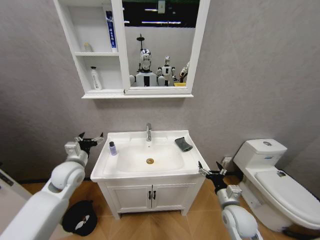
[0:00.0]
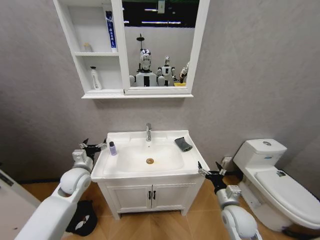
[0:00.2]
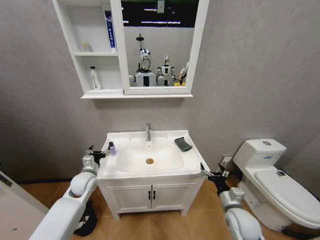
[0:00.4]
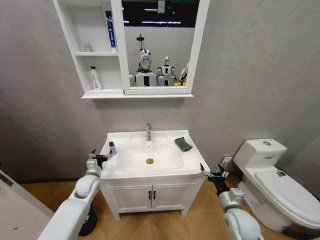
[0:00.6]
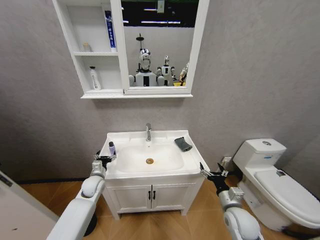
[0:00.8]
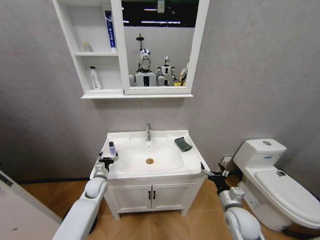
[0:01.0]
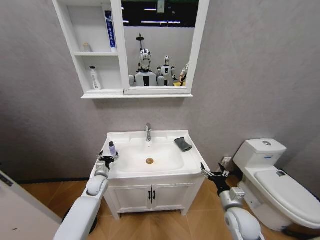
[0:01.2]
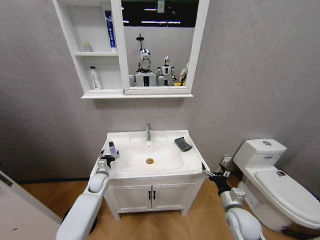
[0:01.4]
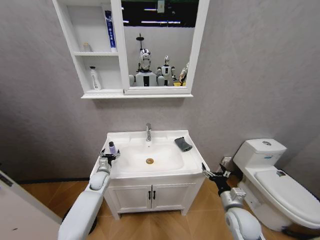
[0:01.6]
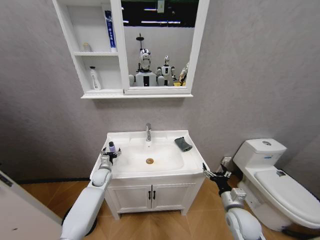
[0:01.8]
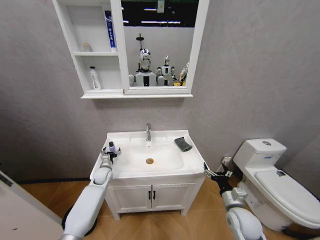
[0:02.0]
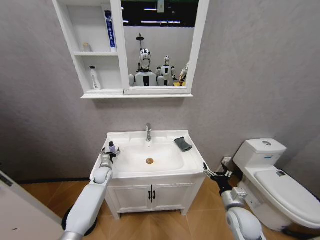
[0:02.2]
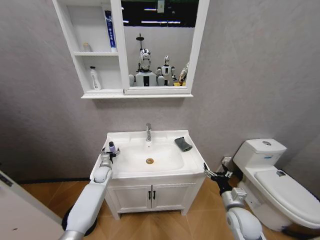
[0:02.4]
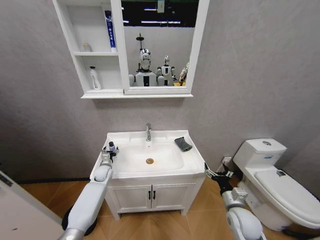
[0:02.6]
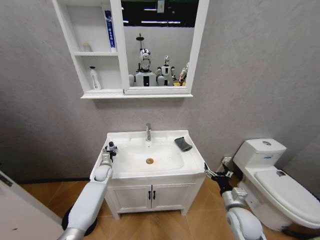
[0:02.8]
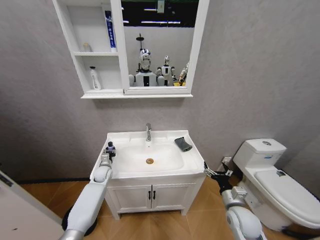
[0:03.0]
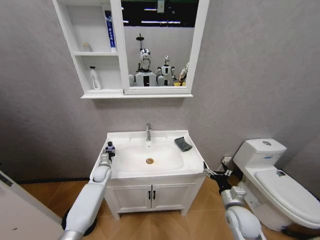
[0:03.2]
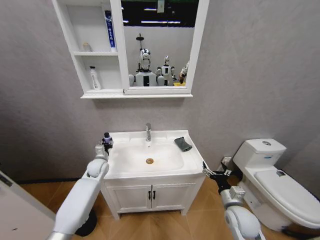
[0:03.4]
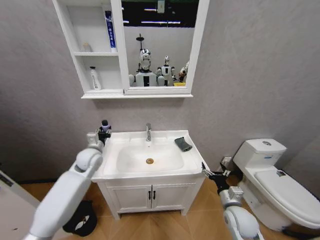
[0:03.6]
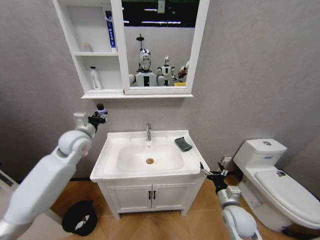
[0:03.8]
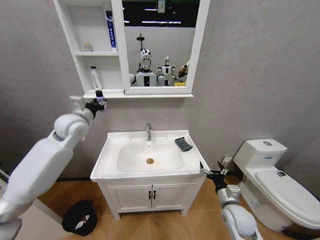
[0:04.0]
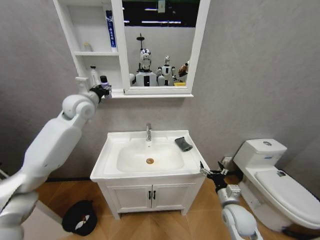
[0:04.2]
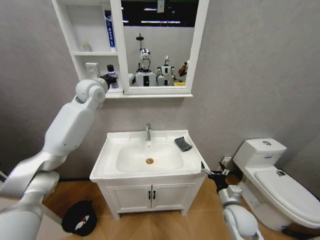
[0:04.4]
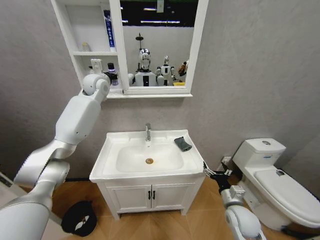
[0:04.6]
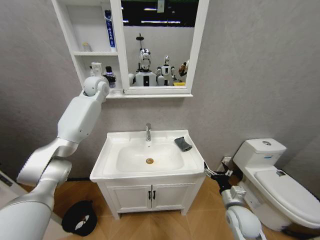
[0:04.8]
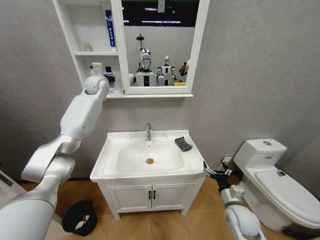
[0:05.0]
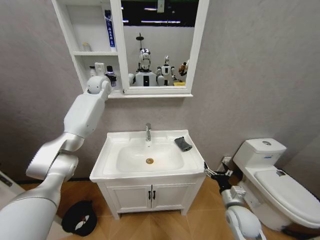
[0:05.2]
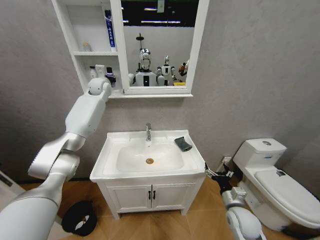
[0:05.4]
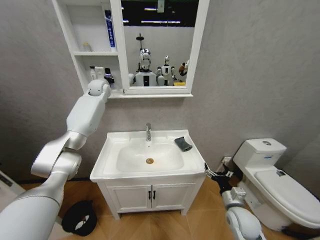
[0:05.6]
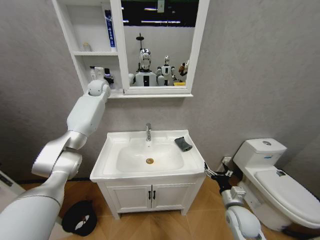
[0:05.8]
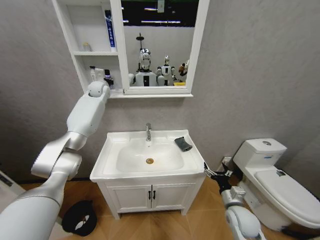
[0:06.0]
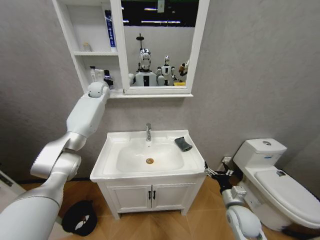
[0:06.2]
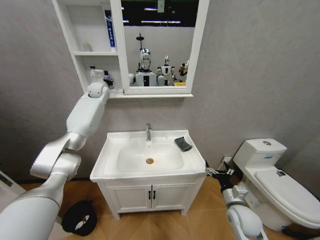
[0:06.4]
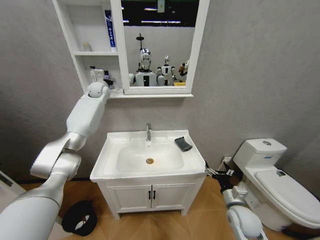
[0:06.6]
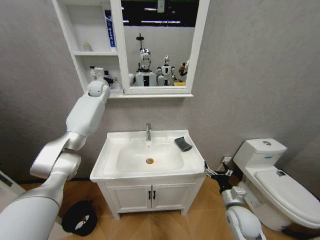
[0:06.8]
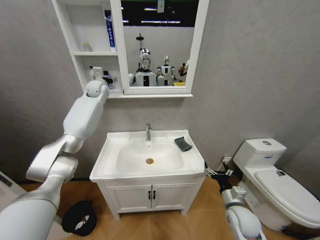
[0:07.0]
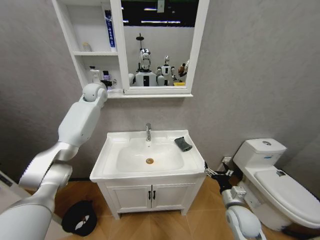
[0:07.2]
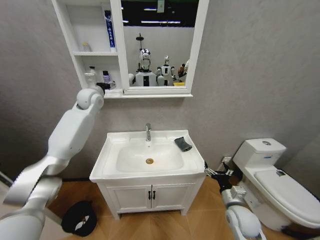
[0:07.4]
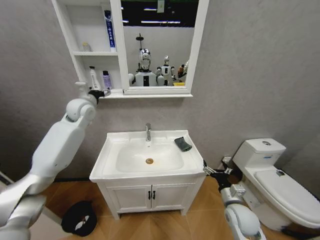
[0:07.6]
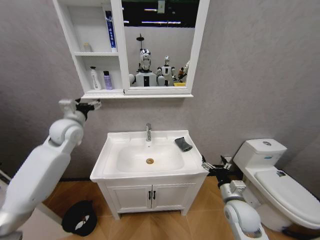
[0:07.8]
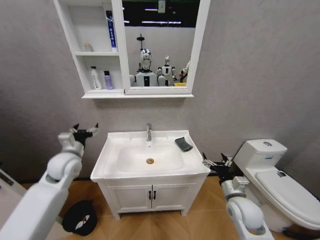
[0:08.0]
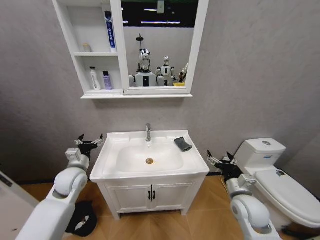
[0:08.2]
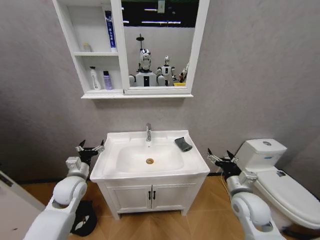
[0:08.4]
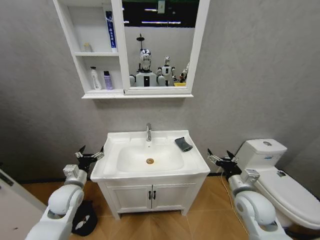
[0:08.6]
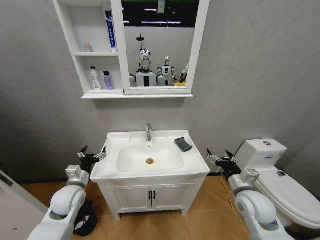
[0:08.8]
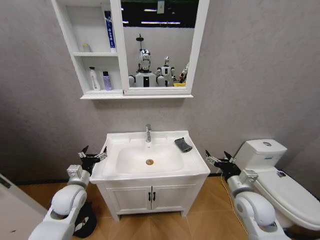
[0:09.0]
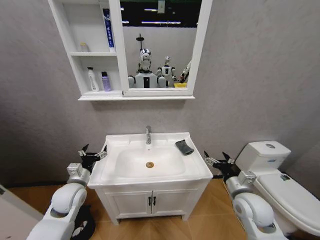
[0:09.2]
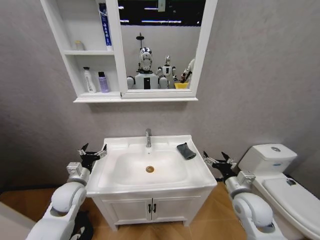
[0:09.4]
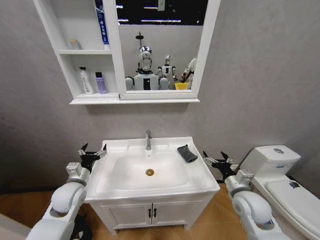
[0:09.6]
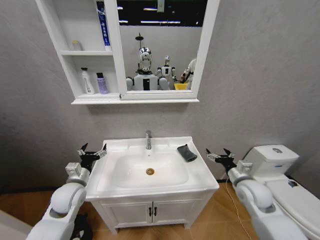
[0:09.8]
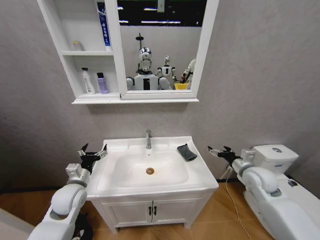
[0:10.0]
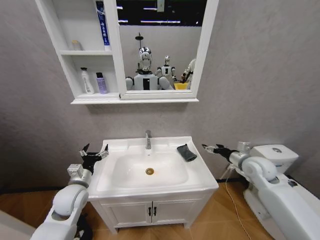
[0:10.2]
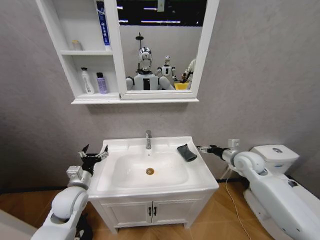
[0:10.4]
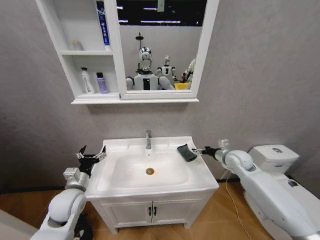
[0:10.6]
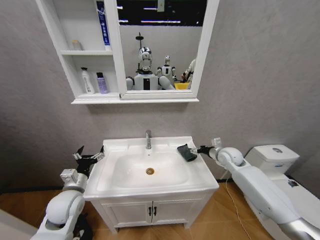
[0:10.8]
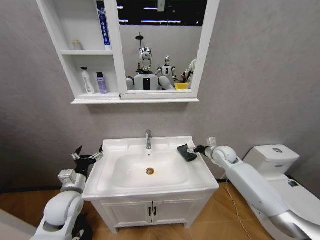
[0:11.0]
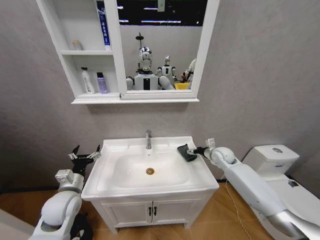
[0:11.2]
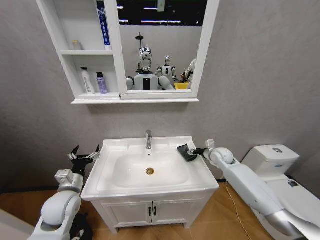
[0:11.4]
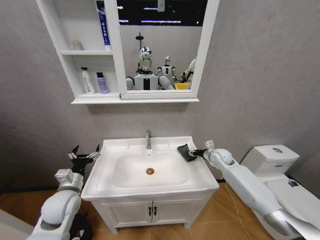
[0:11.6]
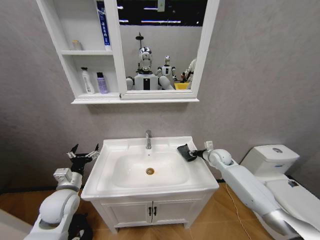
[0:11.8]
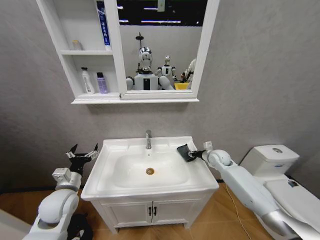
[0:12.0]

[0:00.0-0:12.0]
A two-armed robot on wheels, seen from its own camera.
Task of the whole recording: Move facial cleanser and shampoo from washbasin to cabinet, then wipe washbasin with towel.
0:00.0 to 0:01.6: The left gripper goes approximately 20 cm downward.
0:01.6 to 0:03.0: The left gripper closes its fingers.
0:03.0 to 0:04.4: The left gripper goes roughly 40 cm upward.
0:04.4 to 0:06.0: The left gripper shifts some 10 cm forward.
0:06.0 to 0:07.6: The left gripper moves backward, some 15 cm, and opens up.
0:07.6 to 0:09.0: The left gripper shifts about 30 cm downward and backward; the right gripper travels upward by about 10 cm.
0:09.0 to 0:10.4: The right gripper is displaced forward and to the right by roughly 15 cm.
0:10.4 to 0:12.0: The right gripper goes about 10 cm forward and downward, and closes up.

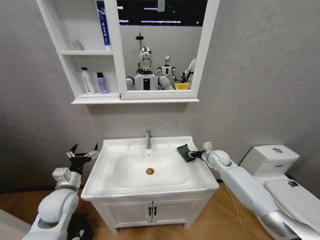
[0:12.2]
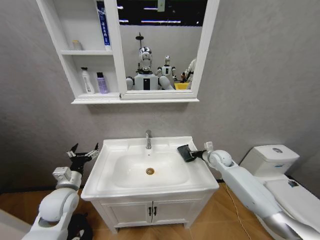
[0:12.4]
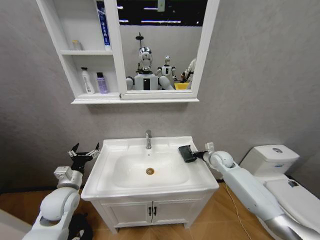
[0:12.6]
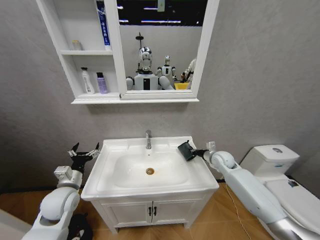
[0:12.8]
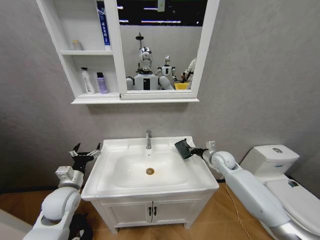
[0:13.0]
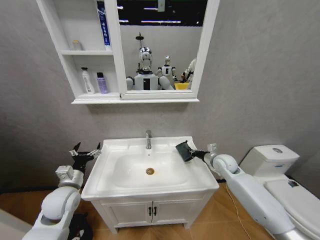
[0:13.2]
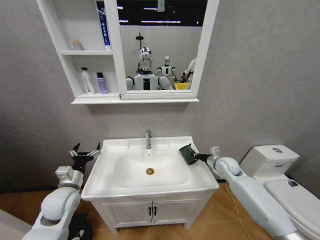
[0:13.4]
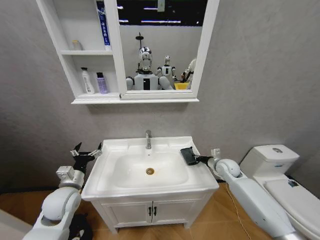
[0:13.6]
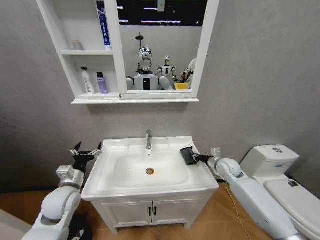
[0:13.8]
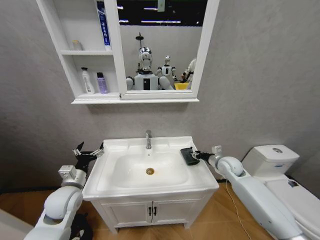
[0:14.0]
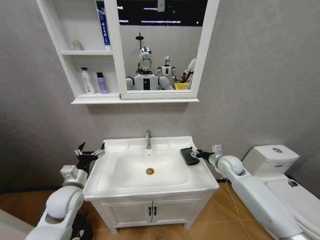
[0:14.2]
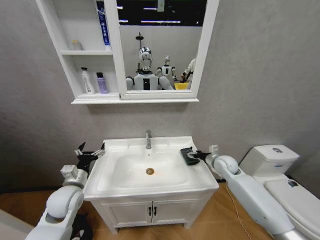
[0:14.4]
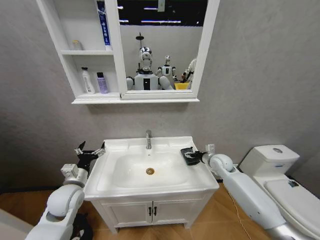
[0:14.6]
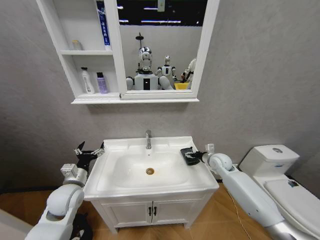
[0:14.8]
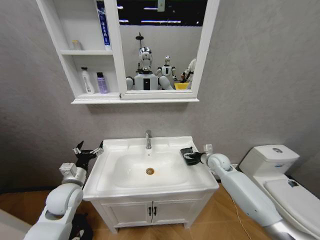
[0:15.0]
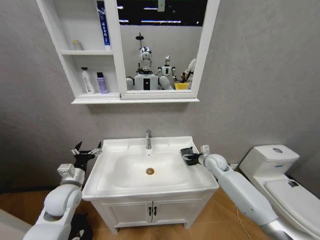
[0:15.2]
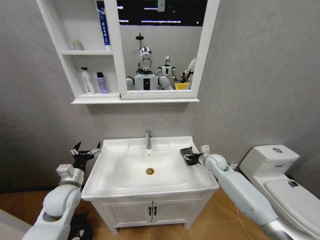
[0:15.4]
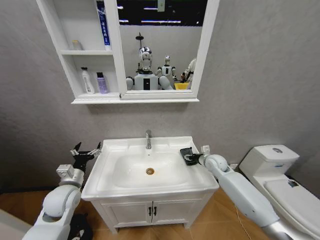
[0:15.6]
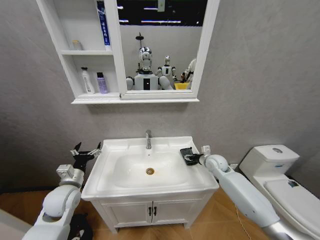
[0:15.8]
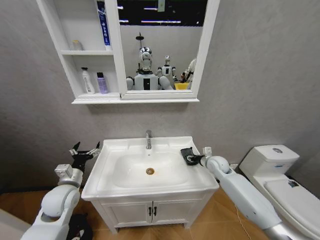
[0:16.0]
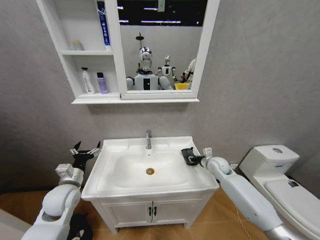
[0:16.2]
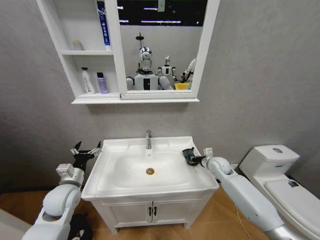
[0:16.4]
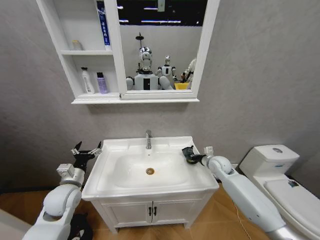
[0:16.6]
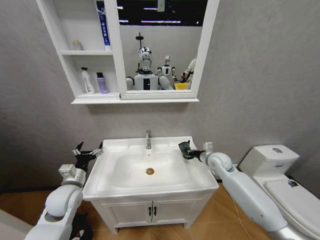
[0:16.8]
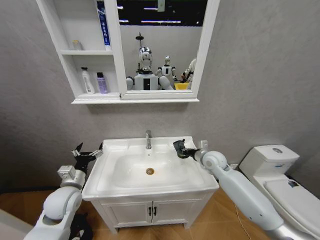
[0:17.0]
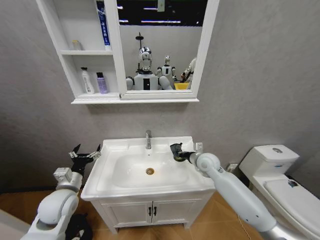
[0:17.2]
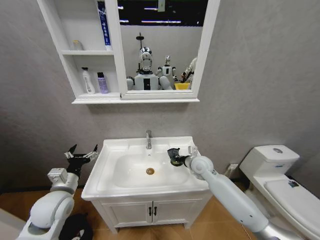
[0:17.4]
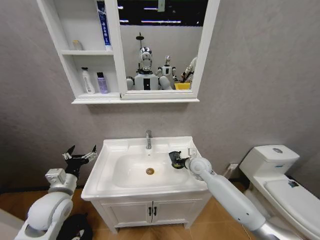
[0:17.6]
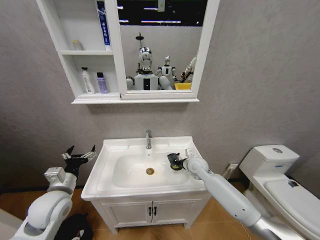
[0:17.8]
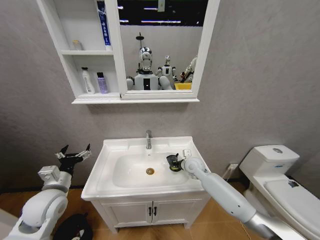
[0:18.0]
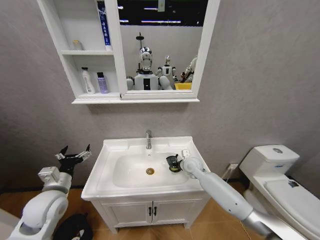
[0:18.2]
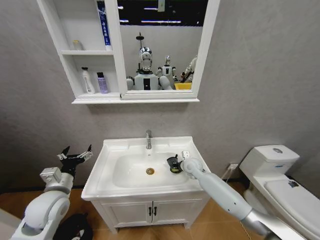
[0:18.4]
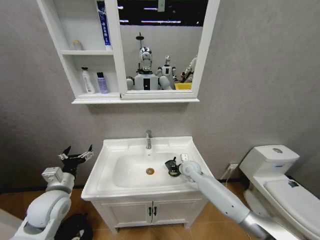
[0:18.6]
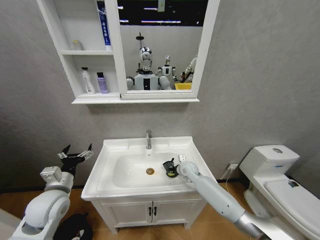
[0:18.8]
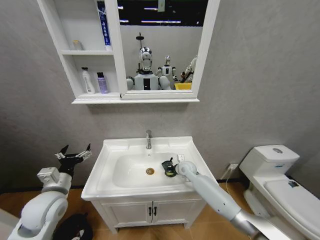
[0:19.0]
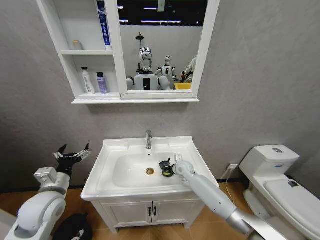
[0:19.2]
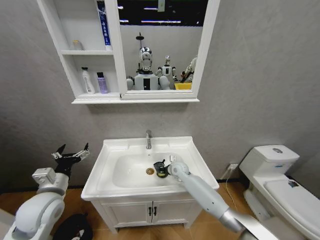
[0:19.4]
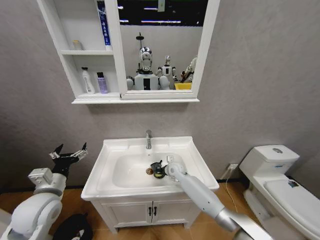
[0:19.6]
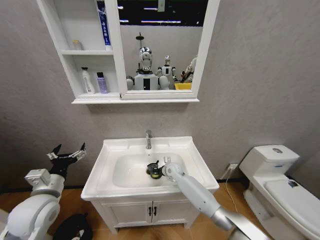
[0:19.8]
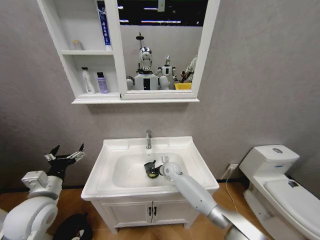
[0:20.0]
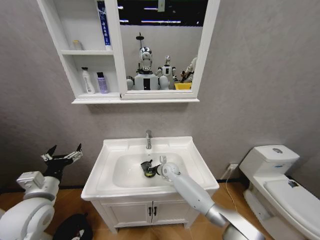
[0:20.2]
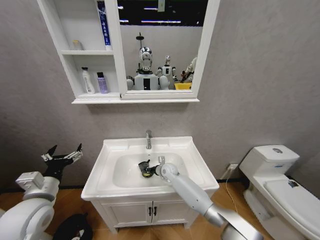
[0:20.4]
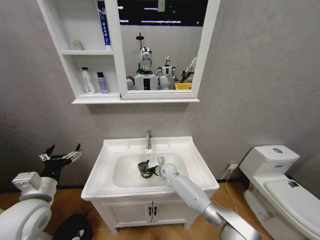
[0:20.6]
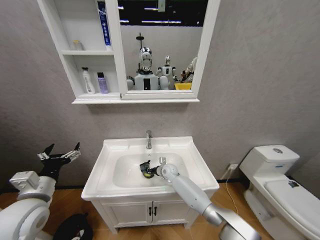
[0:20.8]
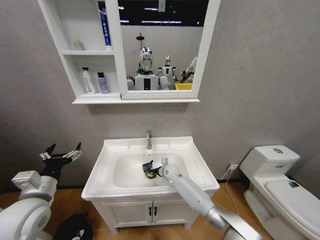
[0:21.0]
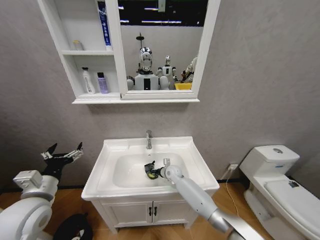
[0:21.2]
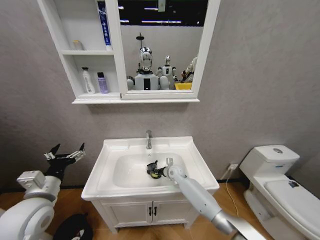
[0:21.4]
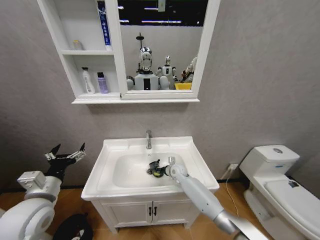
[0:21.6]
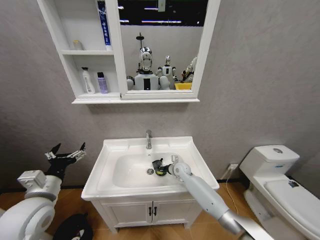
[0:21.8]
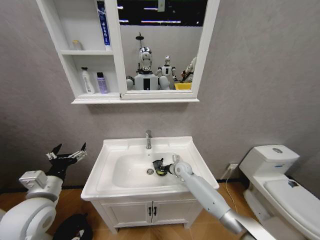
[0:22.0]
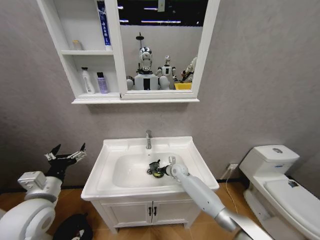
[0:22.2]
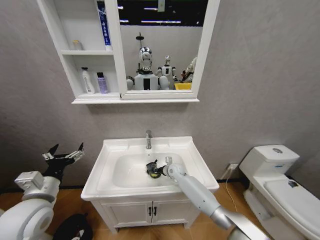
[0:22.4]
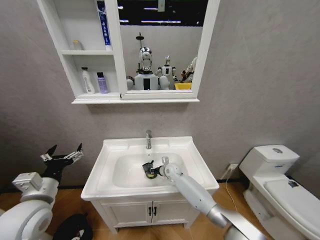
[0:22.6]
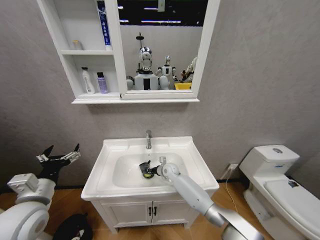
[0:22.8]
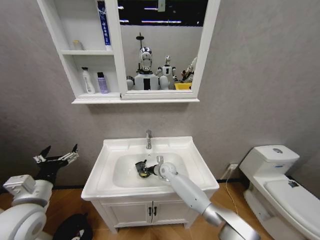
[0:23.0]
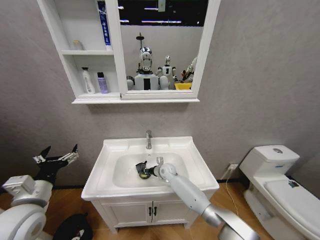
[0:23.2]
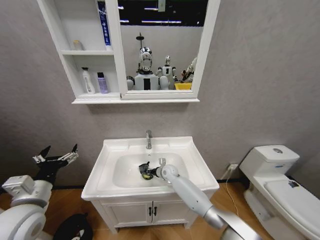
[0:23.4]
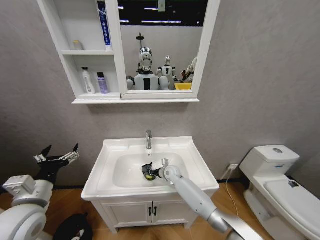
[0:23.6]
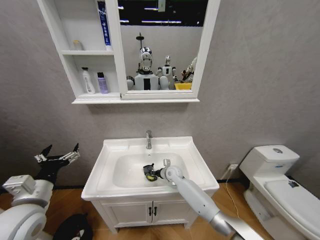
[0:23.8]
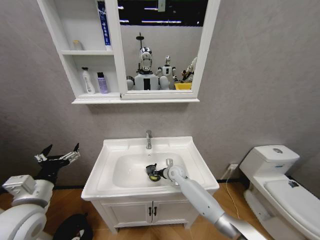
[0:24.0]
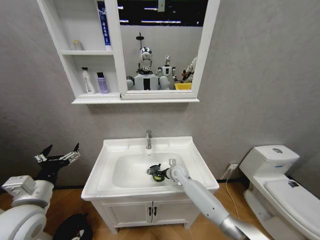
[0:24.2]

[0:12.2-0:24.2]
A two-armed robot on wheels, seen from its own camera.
Task of the whole recording: Move facial cleanser and shampoo from washbasin to cabinet, then wipe washbasin with towel.
0:12.2 to 0:13.8: The right gripper travels backward by approximately 5 cm.
0:13.8 to 0:15.2: The right gripper changes place by roughly 5 cm, and opens up.
0:15.2 to 0:16.6: The right gripper closes up.
0:16.6 to 0:18.2: The right gripper shifts roughly 10 cm to the left.
0:18.2 to 0:19.8: The right gripper moves to the left and downward, approximately 10 cm.
0:19.8 to 0:24.2: There are only small adjustments of the grippers.
